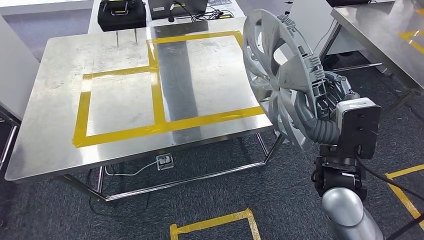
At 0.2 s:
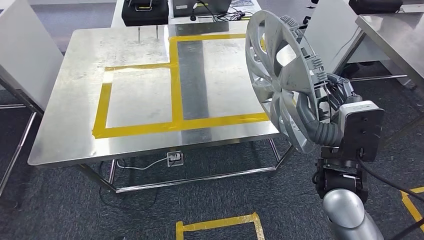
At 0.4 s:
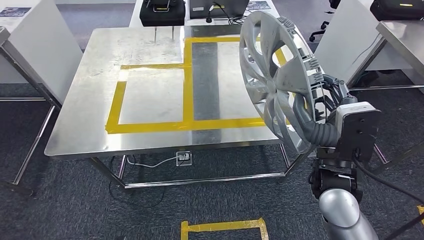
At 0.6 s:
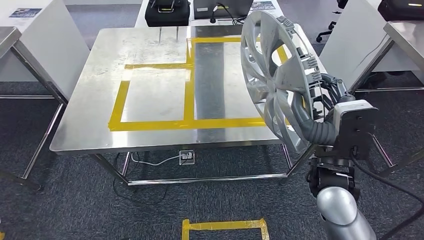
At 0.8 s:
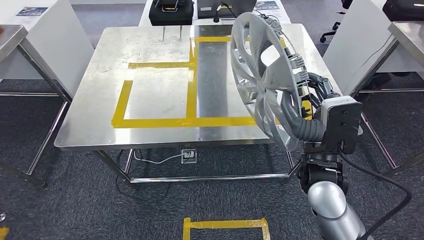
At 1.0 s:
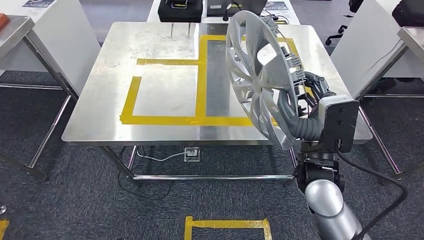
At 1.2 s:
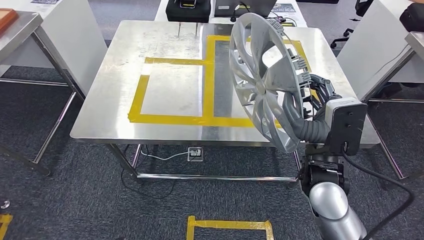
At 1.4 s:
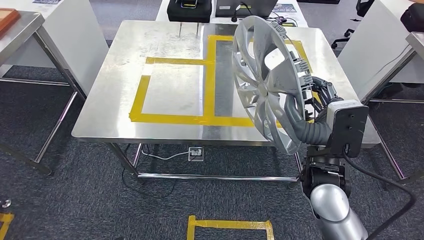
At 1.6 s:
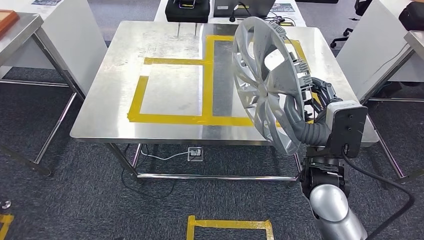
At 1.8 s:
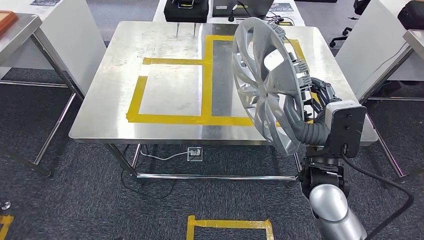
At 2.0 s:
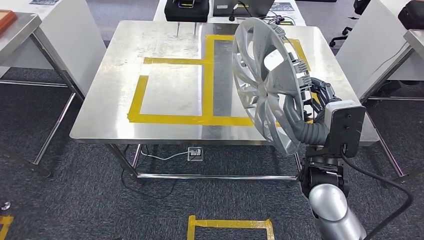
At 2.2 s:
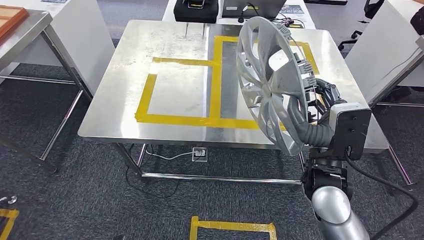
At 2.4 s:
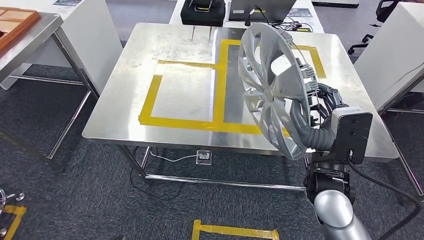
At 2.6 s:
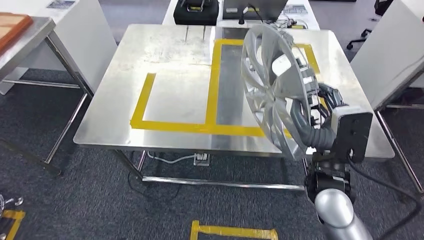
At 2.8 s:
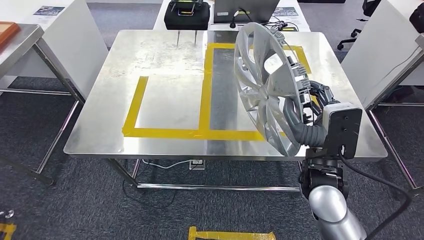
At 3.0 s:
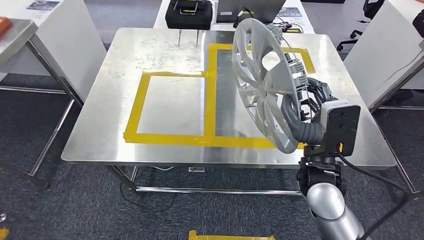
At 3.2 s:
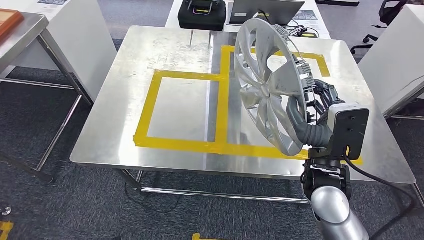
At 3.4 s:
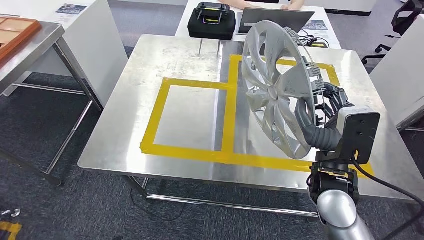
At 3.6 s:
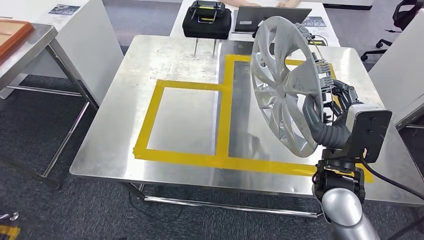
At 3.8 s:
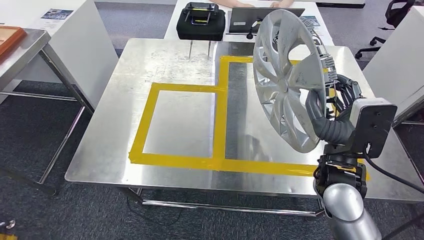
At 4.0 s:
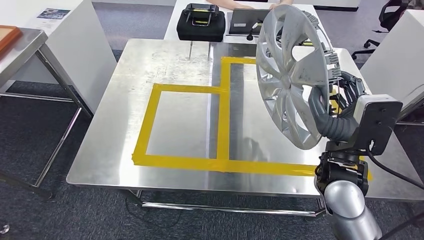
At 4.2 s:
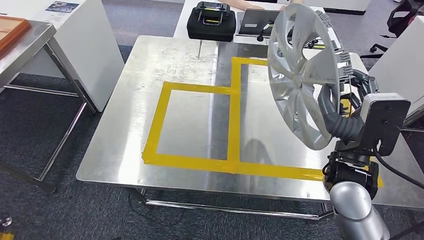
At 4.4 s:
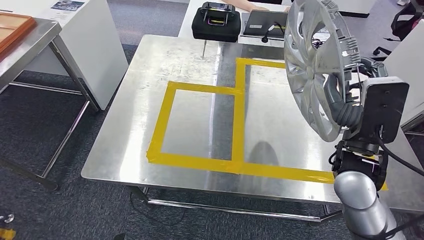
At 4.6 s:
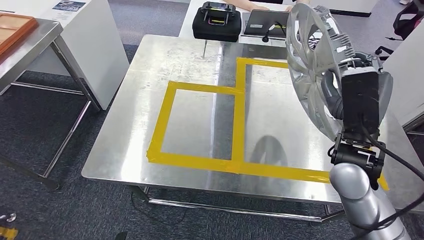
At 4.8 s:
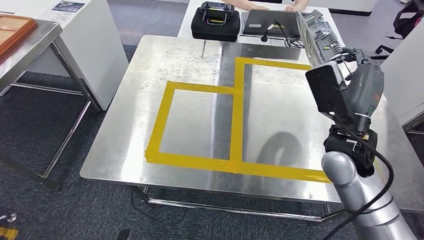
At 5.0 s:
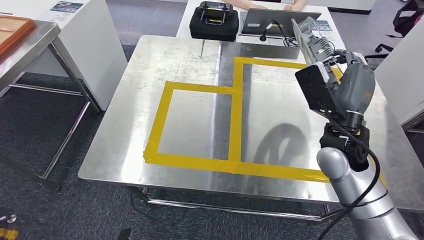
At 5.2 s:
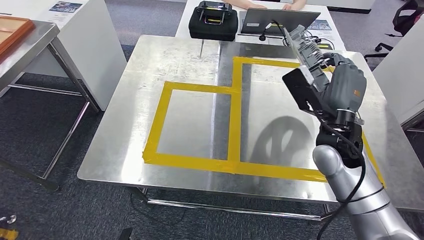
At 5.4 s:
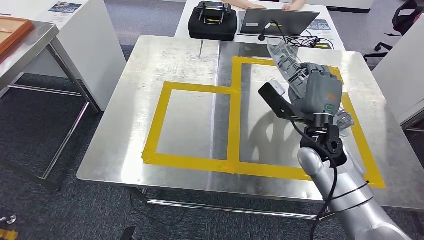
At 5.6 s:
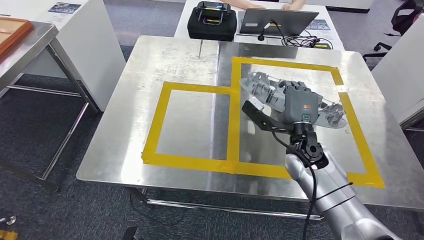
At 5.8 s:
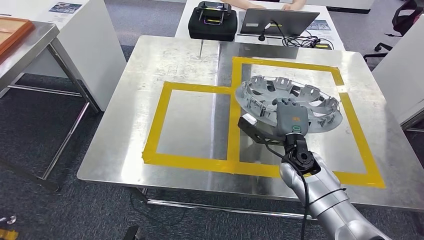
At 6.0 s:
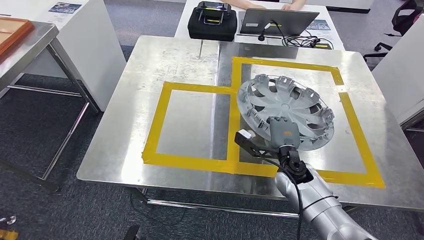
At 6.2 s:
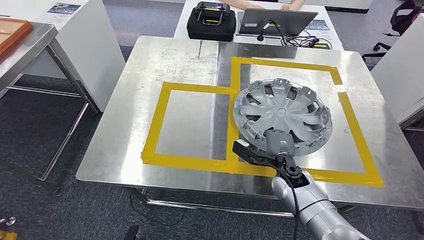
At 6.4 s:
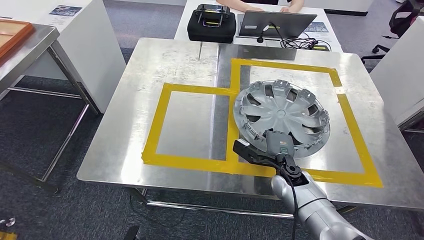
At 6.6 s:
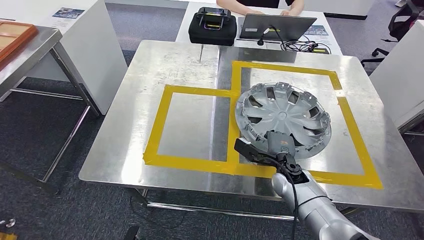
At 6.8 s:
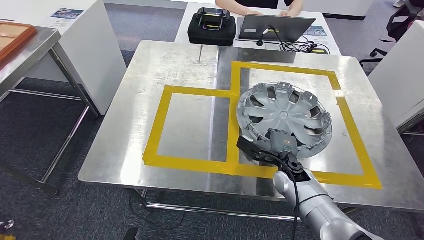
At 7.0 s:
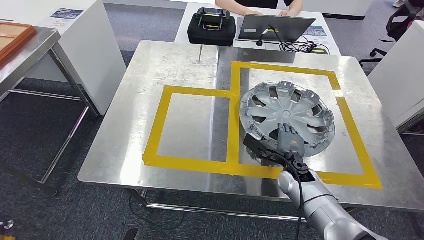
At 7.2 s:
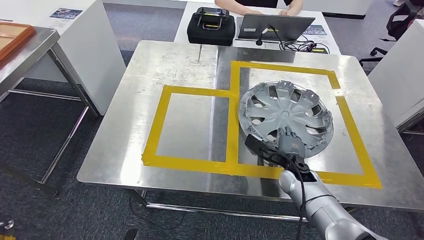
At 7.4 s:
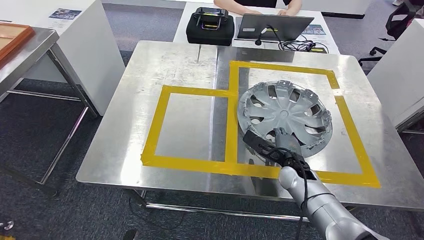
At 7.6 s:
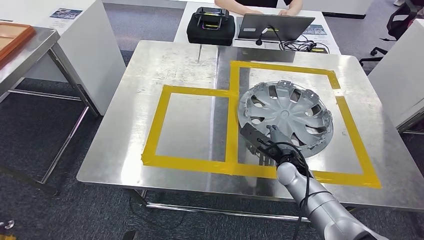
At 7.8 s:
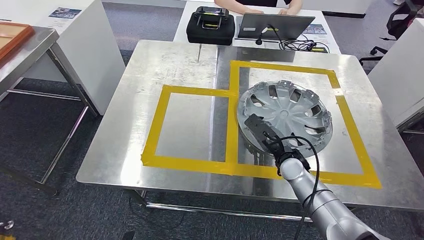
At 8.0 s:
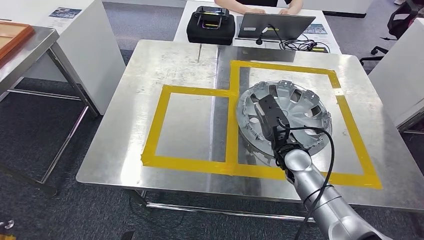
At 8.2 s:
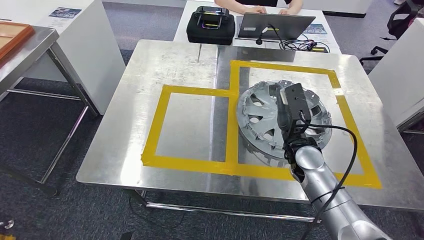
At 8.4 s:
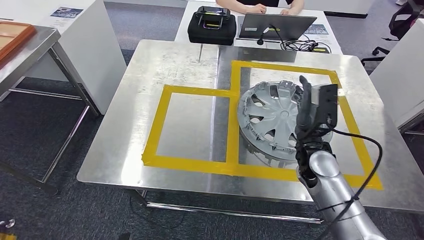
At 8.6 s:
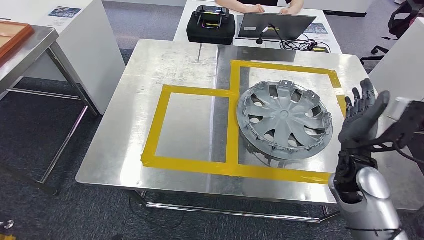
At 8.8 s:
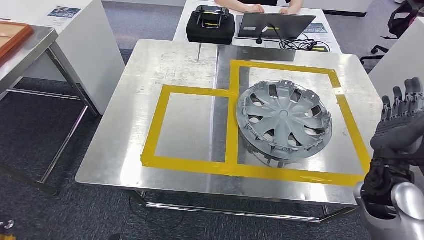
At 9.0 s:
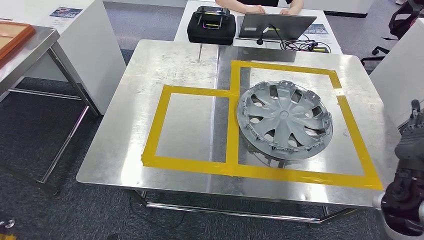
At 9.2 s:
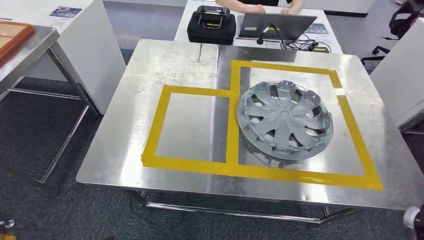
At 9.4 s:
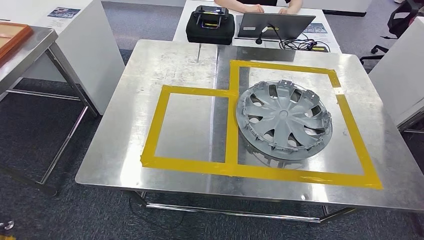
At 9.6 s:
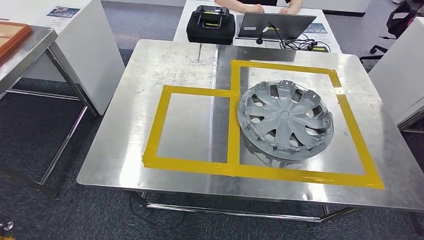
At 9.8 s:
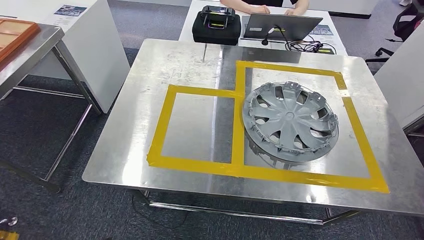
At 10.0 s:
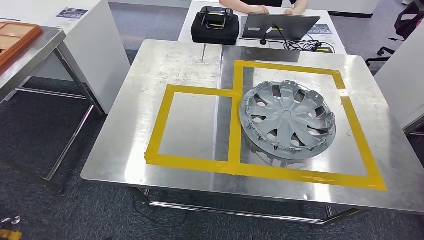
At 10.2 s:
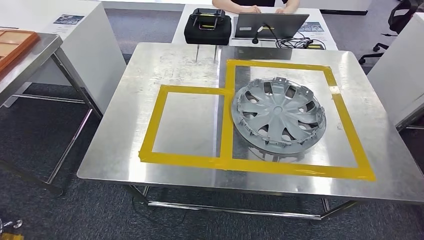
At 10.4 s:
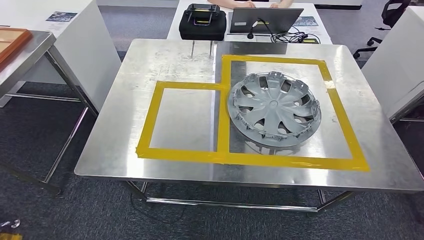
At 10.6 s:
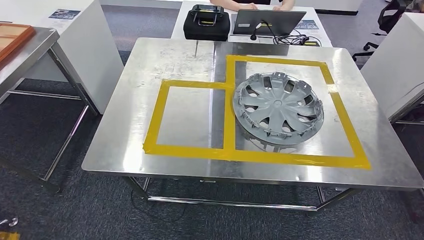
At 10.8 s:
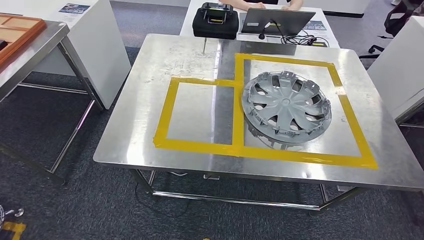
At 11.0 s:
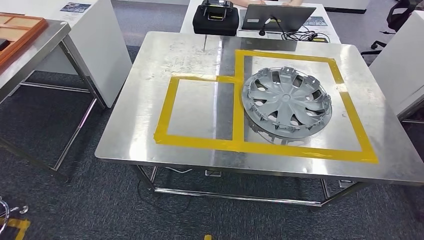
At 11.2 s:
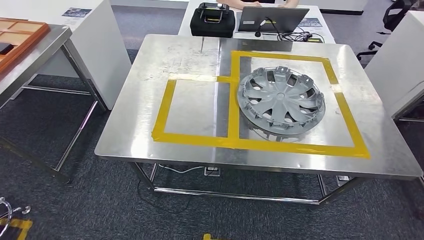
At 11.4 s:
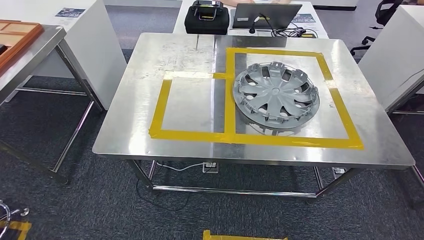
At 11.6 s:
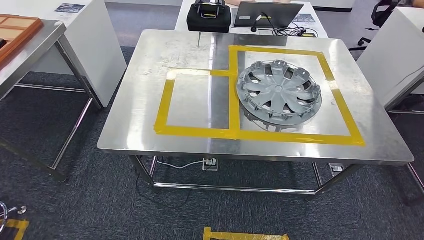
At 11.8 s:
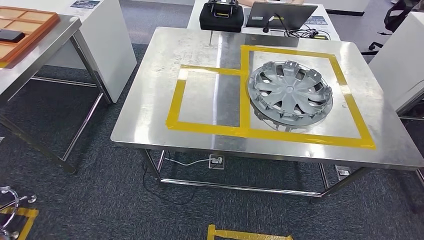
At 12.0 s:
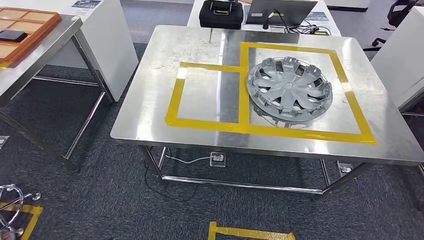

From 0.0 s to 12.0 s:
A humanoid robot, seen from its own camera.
Step, from 2.0 s to 8.0 s: Insert the small parts into the corresponding slots on the workbench.
From 7.6 s to 9.0 s: The right hand heads to the right, upward and backward, covering some 25 cm.

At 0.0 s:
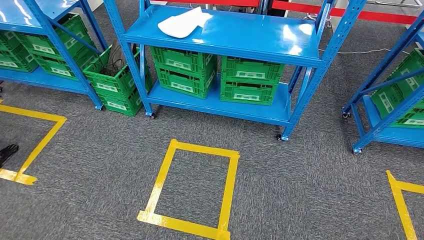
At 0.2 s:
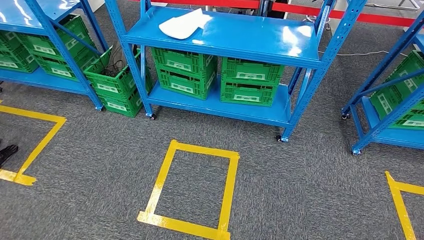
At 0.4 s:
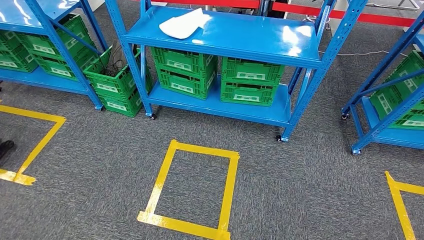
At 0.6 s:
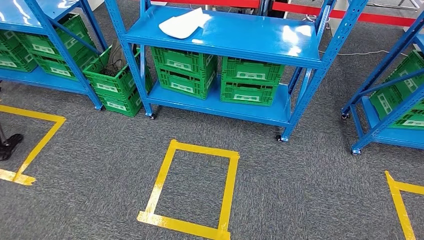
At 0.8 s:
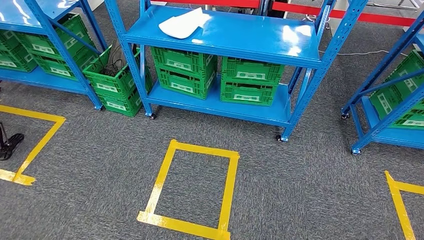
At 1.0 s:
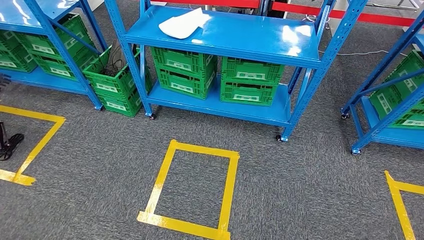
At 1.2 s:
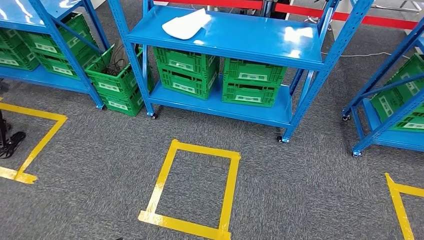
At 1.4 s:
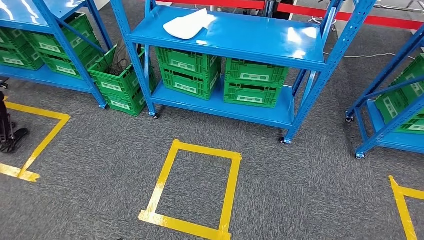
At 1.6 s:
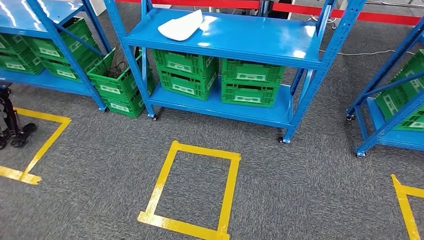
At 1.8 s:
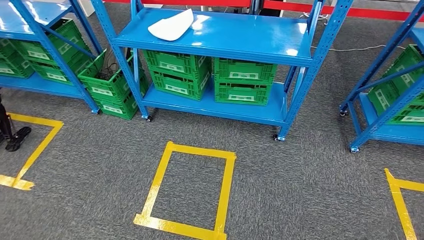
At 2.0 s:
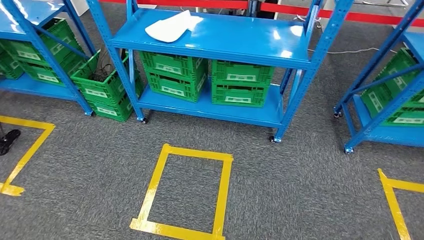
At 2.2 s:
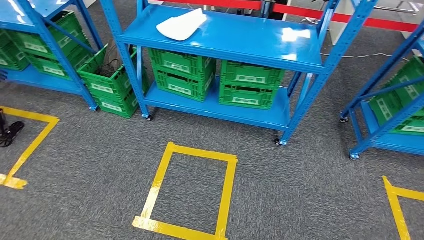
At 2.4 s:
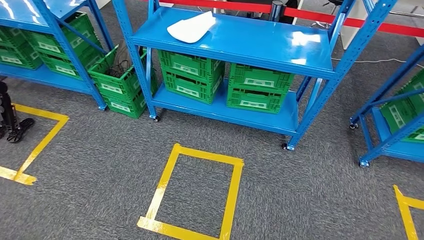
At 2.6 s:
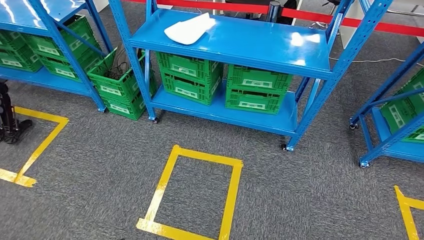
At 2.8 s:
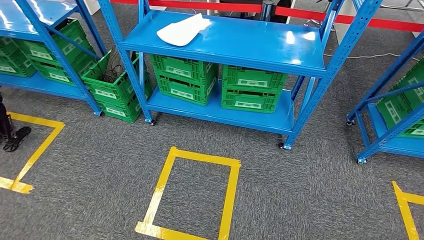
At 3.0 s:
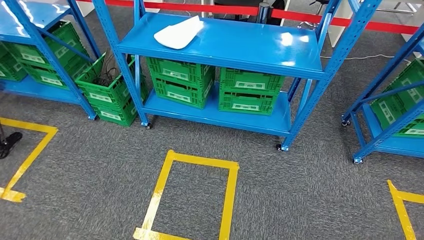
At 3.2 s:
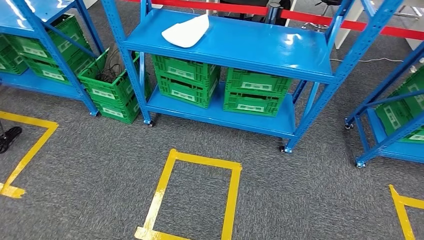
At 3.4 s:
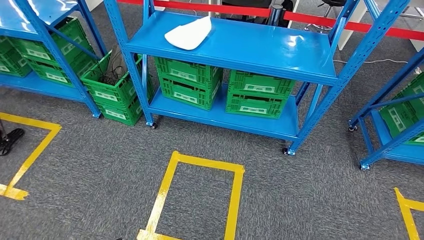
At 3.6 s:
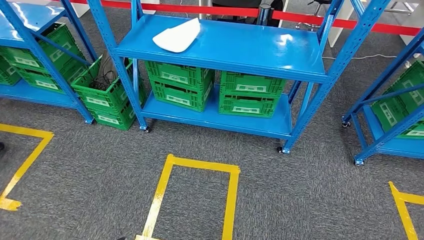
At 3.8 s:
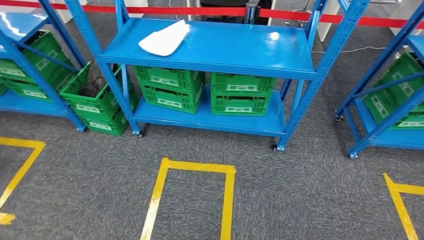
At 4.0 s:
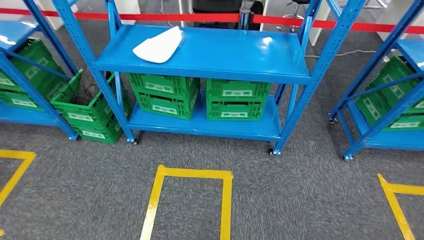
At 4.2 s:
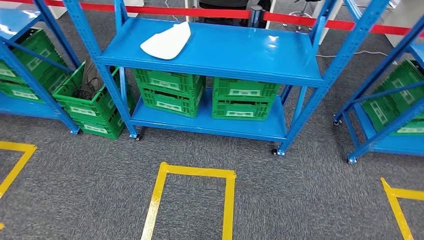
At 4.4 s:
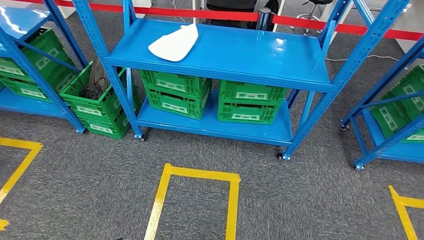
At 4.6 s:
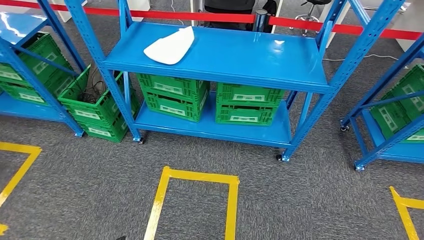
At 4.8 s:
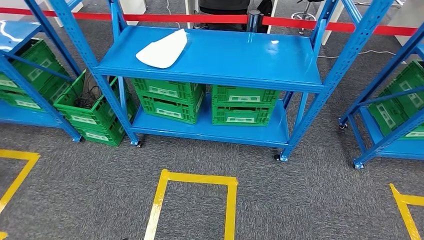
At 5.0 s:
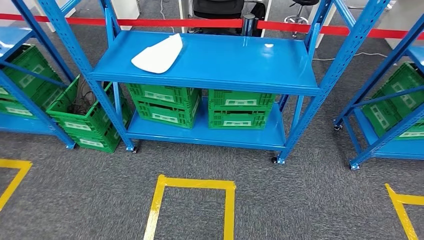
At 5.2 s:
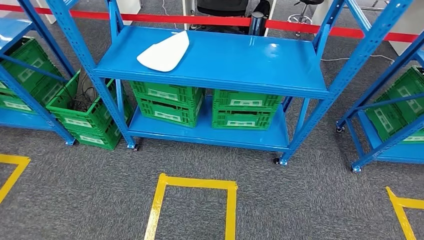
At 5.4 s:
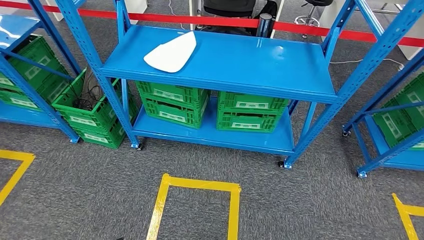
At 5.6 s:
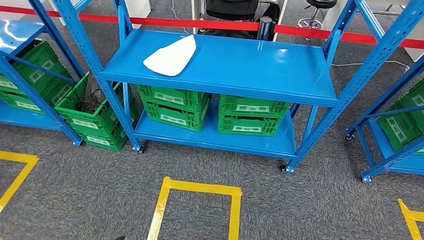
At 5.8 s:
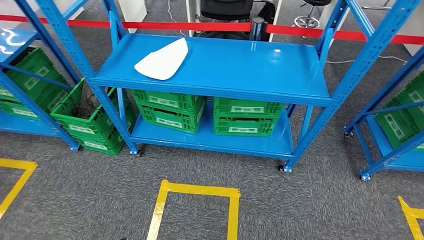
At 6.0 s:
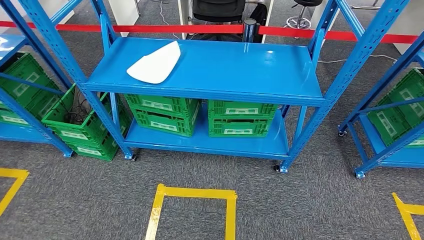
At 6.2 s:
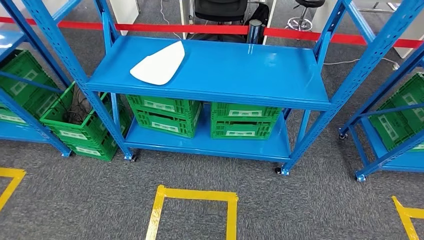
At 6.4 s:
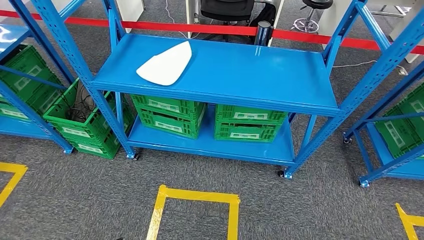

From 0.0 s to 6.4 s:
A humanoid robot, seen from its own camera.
From 0.0 s to 1.6 s: Both hands stay put.
